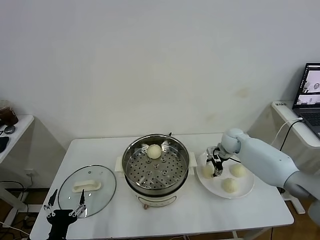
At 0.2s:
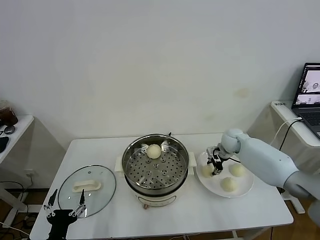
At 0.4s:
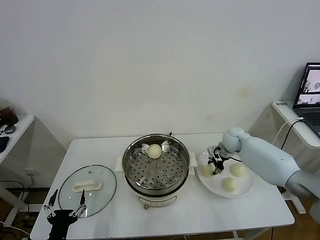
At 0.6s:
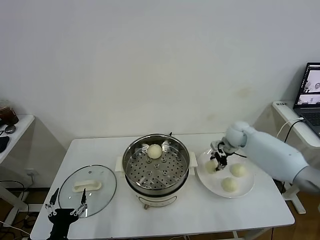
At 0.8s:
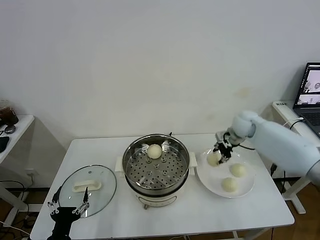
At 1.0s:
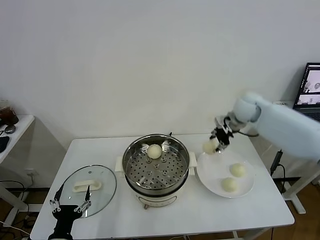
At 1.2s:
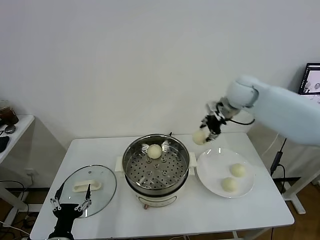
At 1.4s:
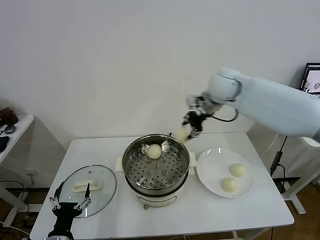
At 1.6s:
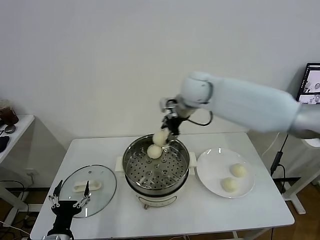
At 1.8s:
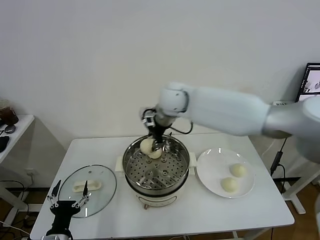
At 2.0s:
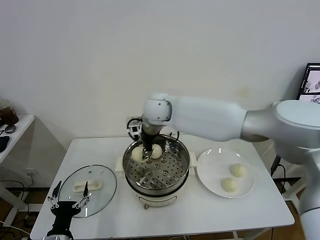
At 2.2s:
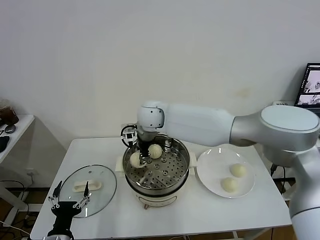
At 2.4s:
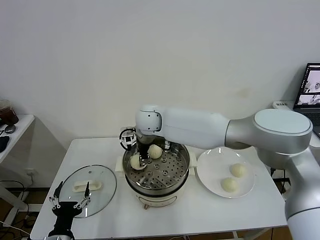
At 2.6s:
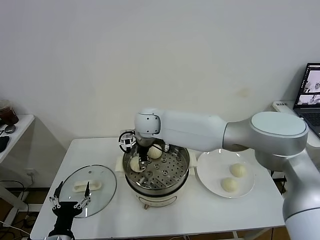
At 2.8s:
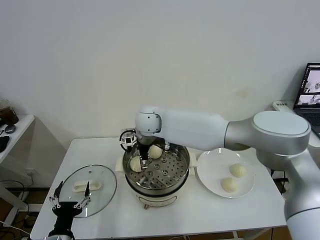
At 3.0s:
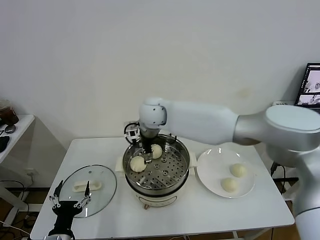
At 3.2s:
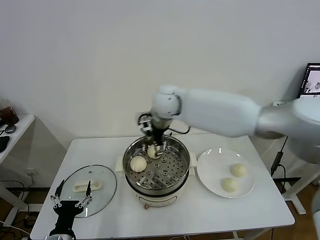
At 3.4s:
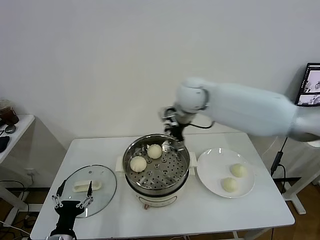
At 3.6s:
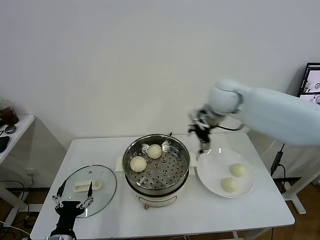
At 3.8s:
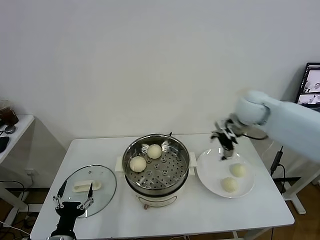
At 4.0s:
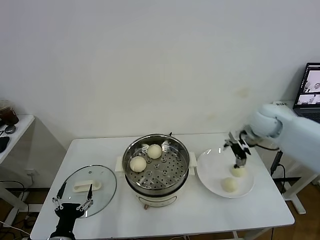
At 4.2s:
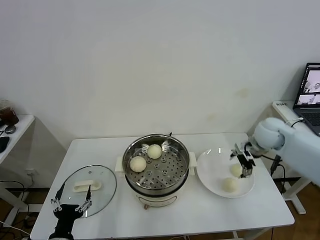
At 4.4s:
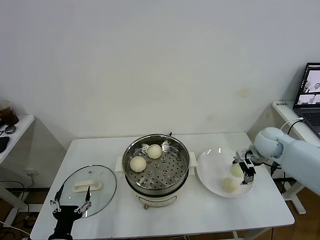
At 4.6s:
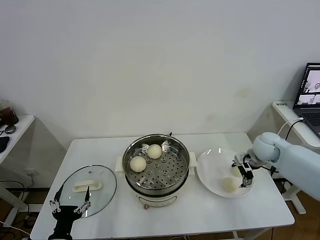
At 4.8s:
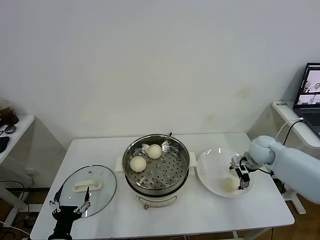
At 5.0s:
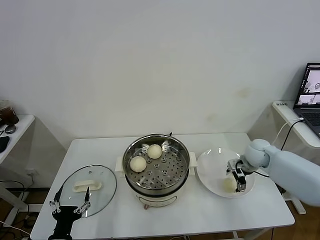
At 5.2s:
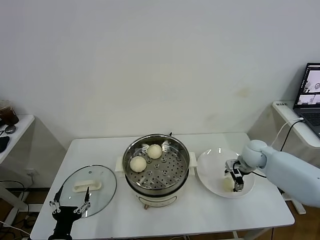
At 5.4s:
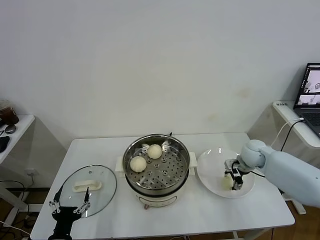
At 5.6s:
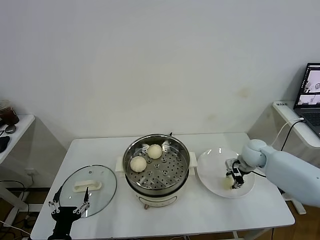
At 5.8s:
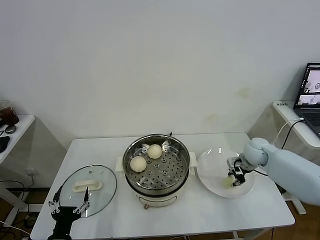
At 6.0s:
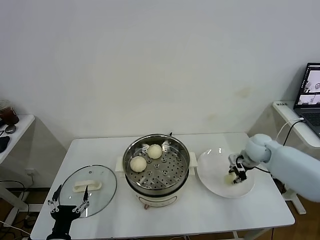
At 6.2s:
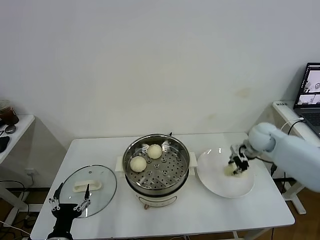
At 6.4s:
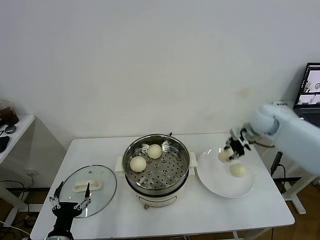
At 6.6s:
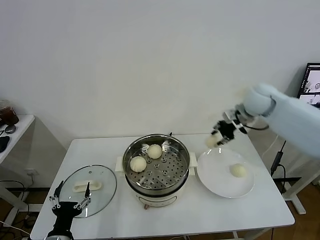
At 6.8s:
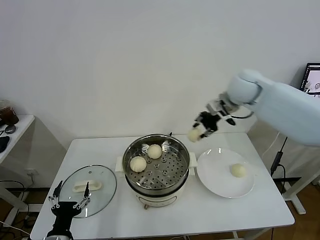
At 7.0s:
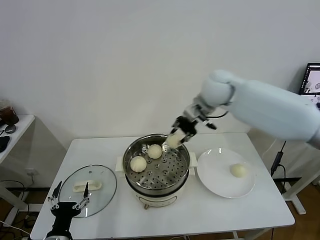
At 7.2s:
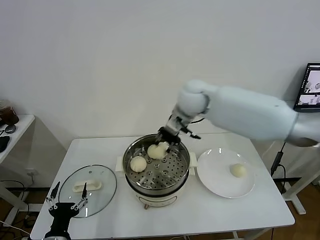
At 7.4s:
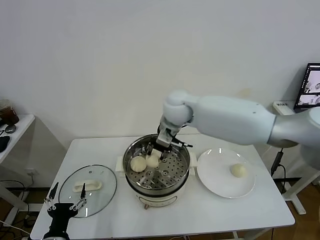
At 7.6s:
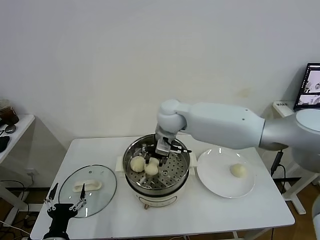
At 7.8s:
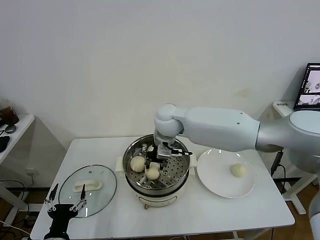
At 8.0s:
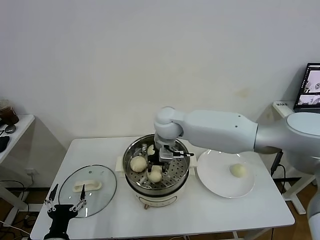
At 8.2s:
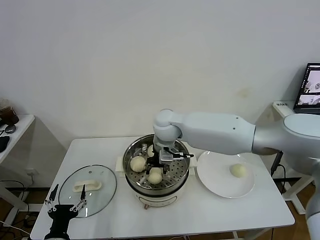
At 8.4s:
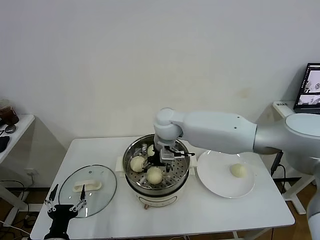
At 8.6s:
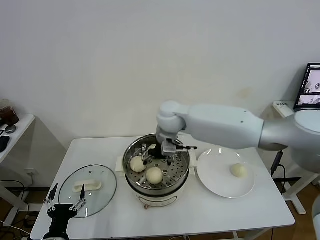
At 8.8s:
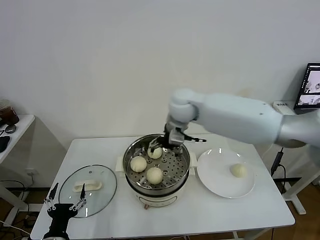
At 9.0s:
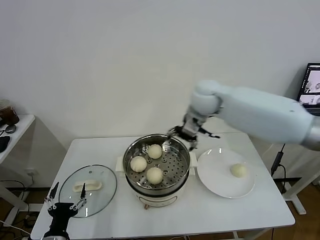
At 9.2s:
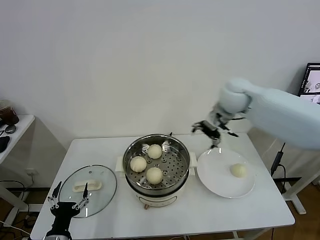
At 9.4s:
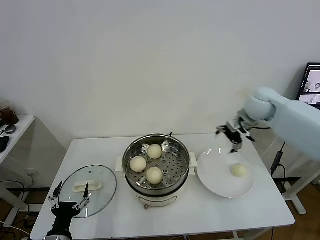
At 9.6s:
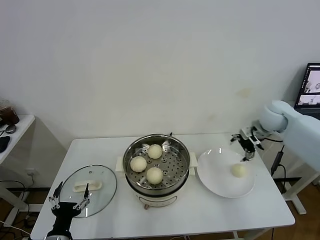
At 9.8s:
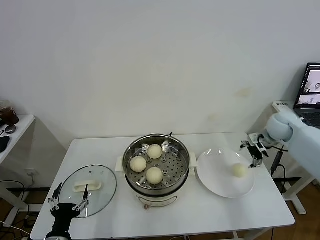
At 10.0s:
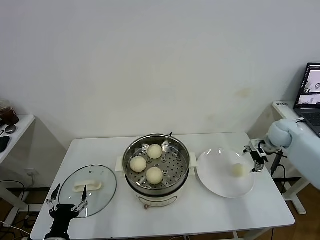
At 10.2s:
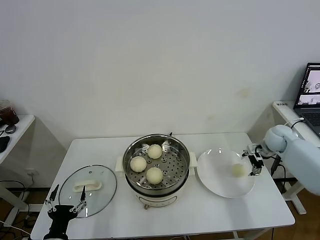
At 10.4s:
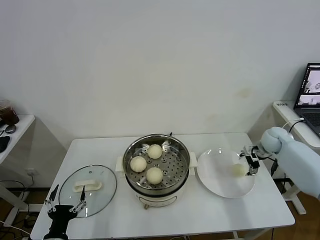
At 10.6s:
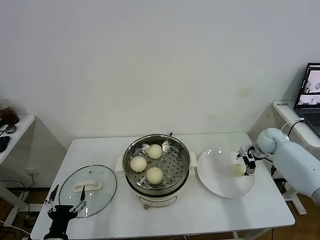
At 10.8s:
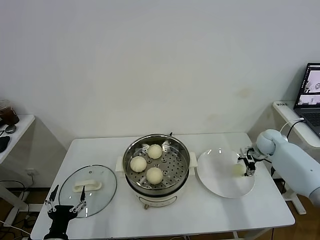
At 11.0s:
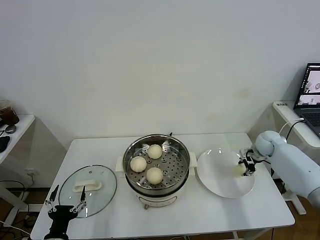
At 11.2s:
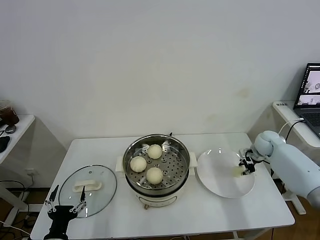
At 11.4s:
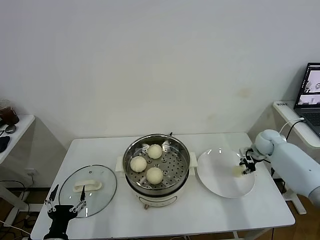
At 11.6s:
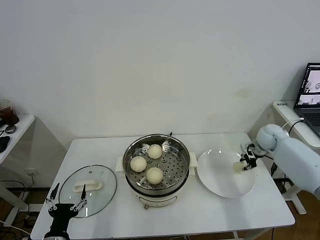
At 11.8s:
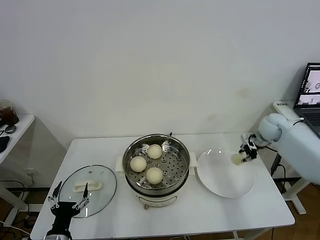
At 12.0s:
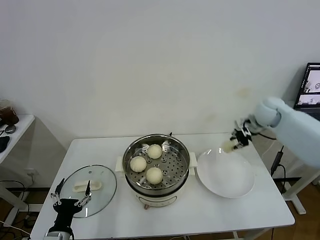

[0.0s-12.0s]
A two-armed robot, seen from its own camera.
Task of the whole recording: take steamed baozi put them in steamer.
Step, 0.6s to 2.8s: Place the baozi on the steamer with right gripper.
Step, 3.0s to 5.8s: Grasp the baozi in the plate with right gripper.
Step, 6.0s to 8.4s: Place the baozi on the steamer with right gripper.
Step, 8.6s to 11.2s: Grasp the baozi in the plate with right gripper.
0.0s to 1.6s: The right gripper goes about 35 cm upward and to the left.
1.6s to 3.0s: The right gripper heads to the left and downward, covering approximately 10 cm, and opens its fingers.
3.0s to 4.4s: The right gripper is displaced to the right by about 40 cm.
4.4s to 6.0s: The right gripper closes.
6.0s to 7.6s: The right gripper shifts roughly 35 cm to the left.
7.6s to 9.0s: The right gripper moves to the right and upward, some 15 cm, and opens its fingers.
9.0s to 10.4s: The right gripper shifts approximately 35 cm to the right and downward.
10.4s to 12.0s: The right gripper heads upward and to the left, covering roughly 15 cm, and closes up.

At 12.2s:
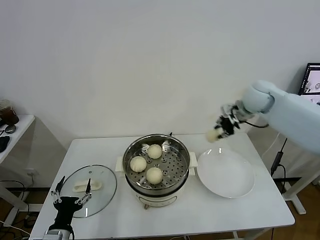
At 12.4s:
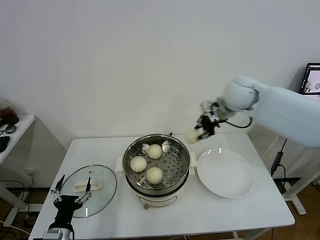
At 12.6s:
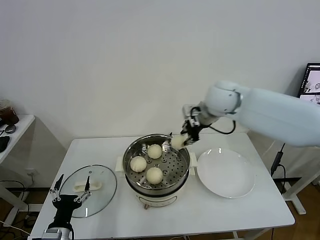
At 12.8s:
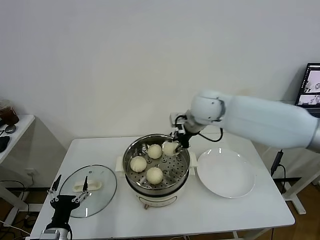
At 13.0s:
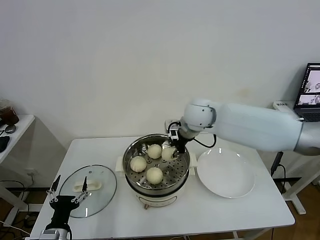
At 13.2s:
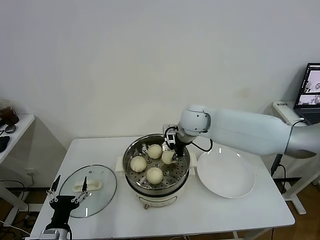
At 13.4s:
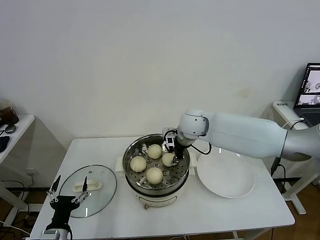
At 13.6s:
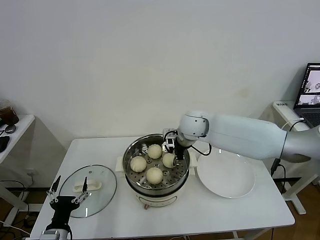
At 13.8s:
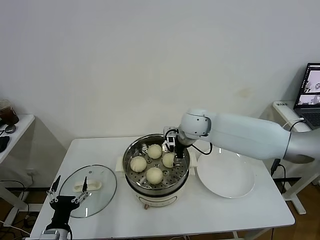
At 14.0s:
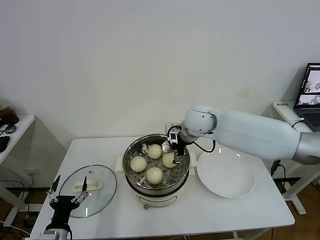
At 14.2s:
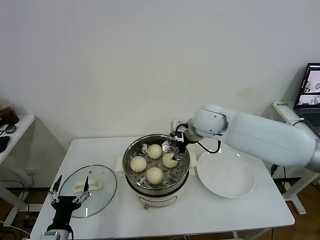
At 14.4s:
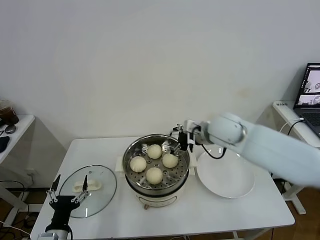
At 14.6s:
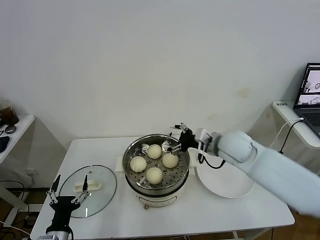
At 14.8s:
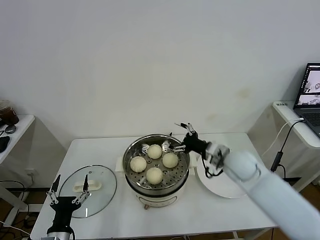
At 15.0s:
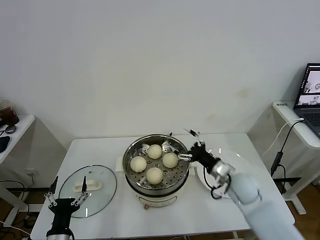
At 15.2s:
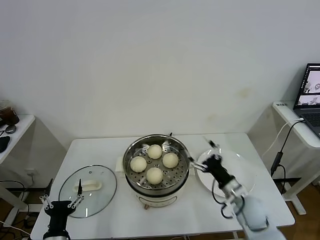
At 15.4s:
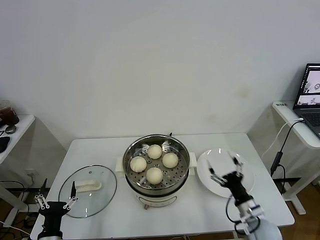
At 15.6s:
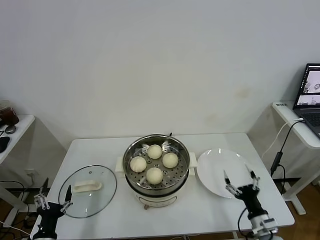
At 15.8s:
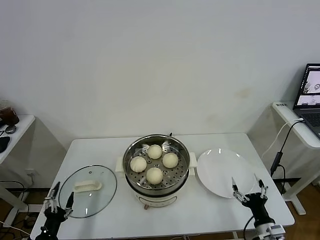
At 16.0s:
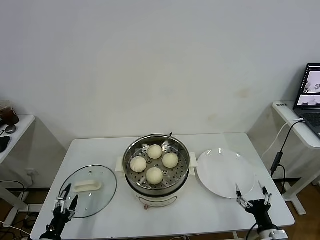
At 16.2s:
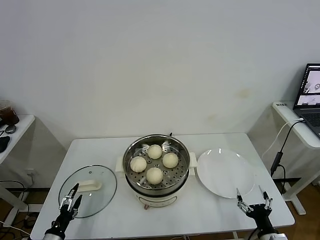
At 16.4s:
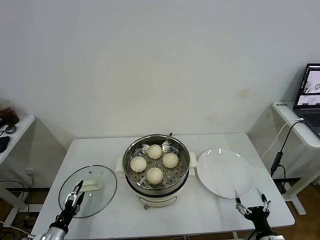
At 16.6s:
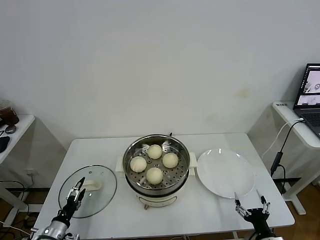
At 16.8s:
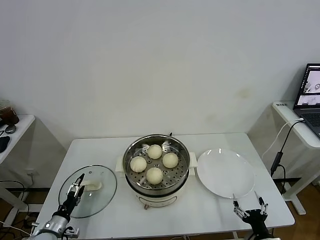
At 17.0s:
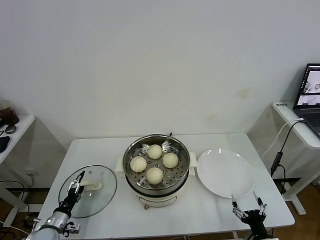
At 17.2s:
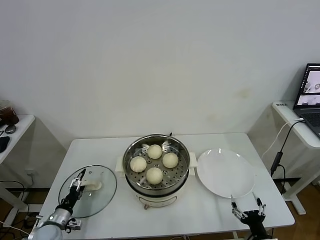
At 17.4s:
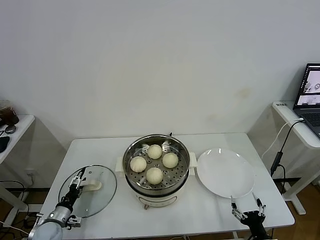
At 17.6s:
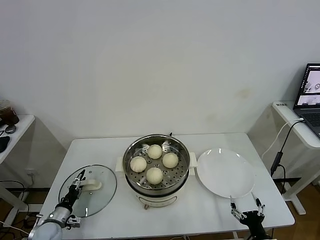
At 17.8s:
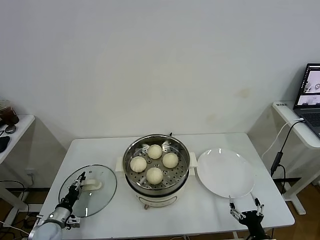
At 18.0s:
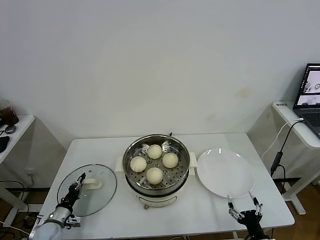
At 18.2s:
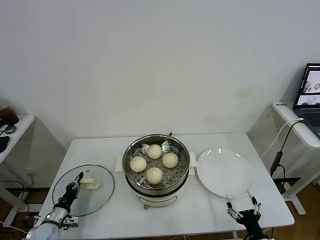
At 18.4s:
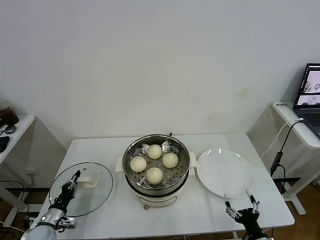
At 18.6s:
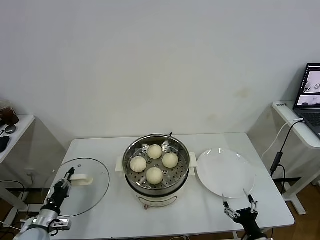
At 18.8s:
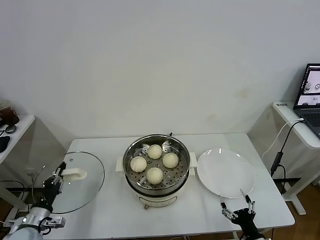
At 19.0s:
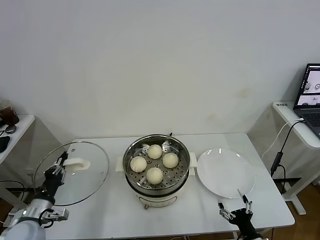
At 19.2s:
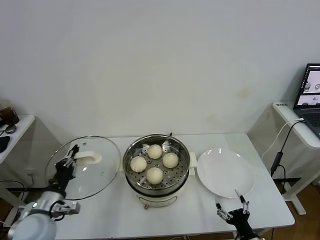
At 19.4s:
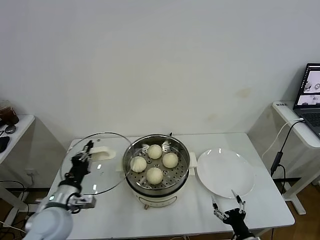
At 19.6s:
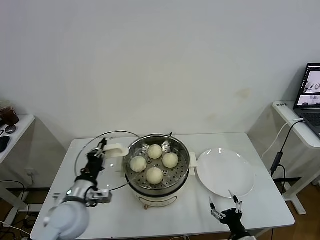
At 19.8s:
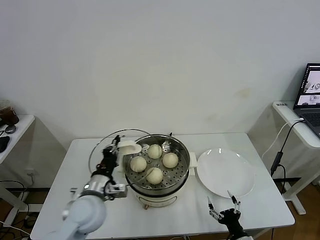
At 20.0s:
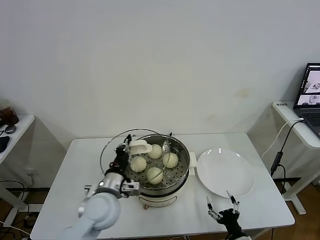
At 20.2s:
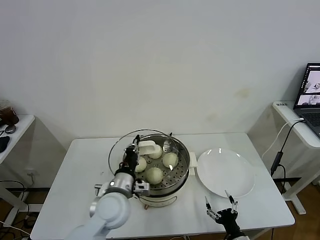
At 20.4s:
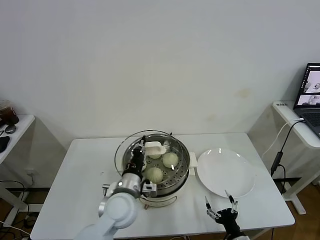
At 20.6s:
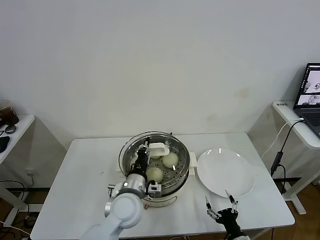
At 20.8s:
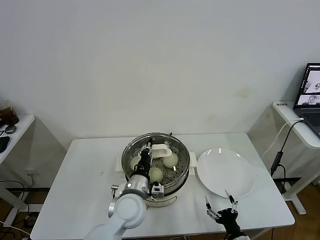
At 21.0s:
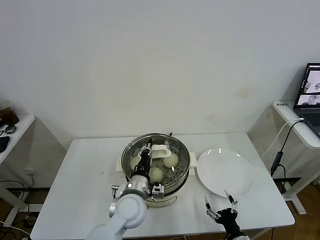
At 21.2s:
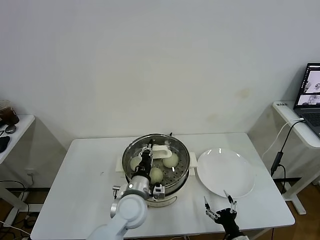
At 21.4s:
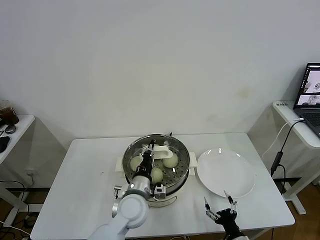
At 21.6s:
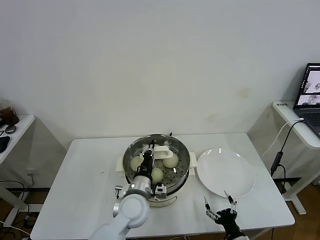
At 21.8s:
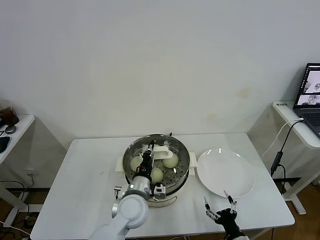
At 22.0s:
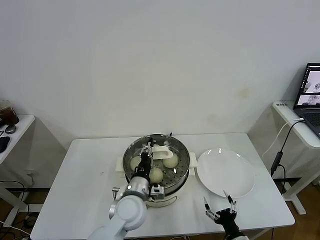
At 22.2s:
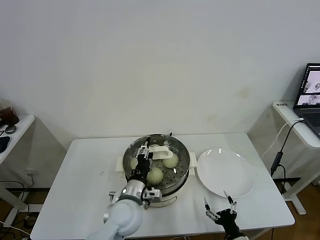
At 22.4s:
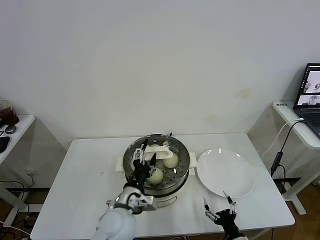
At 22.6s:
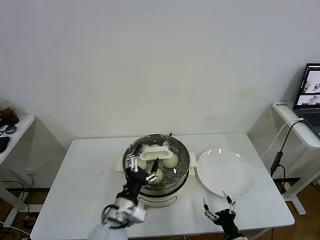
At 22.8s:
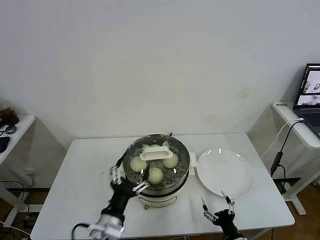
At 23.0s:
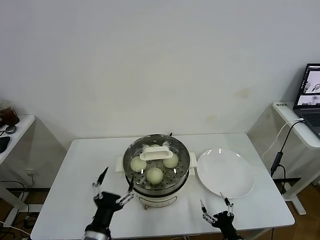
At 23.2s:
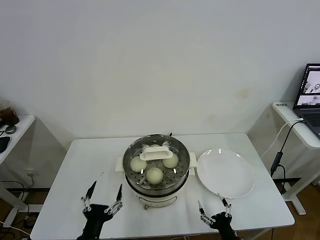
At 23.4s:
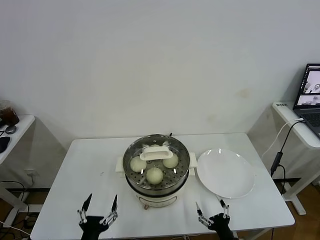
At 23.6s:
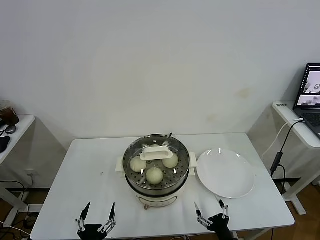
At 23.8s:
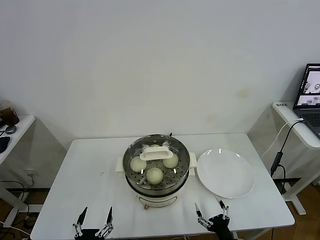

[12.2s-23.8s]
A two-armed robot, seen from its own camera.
Task of the whole recording: take steamed baozi put them in steamer.
Step, 12.2s to 13.8s: Place the baozi on the steamer with right gripper.
Step, 14.0s to 18.0s: Grasp the pot lid with left gripper.
Step, 18.2s to 22.4s: Place the pot lid on the steamer with left gripper.
12.2s to 13.6s: The right gripper shifts approximately 20 cm to the left and downward, and opens up.
13.6s to 15.0s: The right gripper shifts roughly 25 cm to the right, backward and downward, and opens its fingers.
15.0s to 16.6s: The right gripper heads backward, downward and to the right, covering about 30 cm, while the left gripper is displaced to the left, downward and forward by some 15 cm.
16.6s to 18.0s: The left gripper moves forward, some 5 cm, and closes up.
18.0s to 19.4s: The left gripper moves upward and to the right, about 25 cm.
19.4s to 21.0s: The left gripper heads to the right, covering roughly 20 cm.
21.0s to 22.4s: The left gripper opens its fingers.
22.4s to 23.8s: The left gripper moves backward, to the left and downward, roughly 25 cm.
